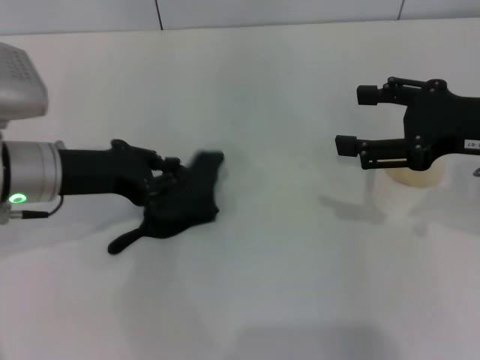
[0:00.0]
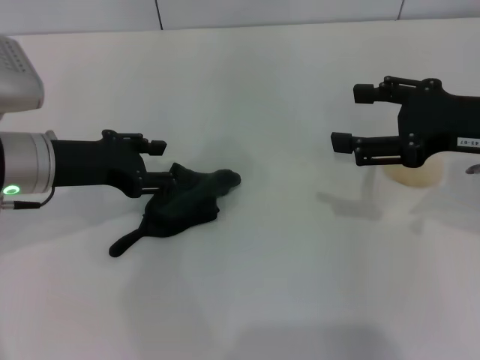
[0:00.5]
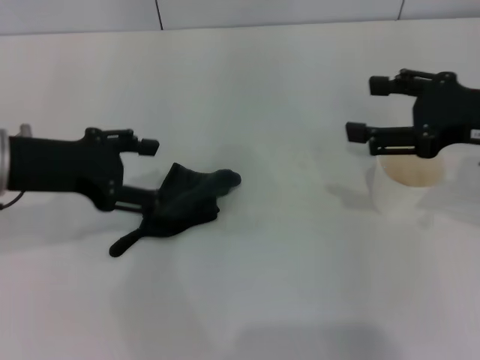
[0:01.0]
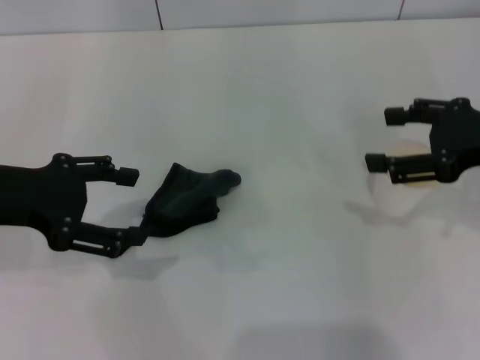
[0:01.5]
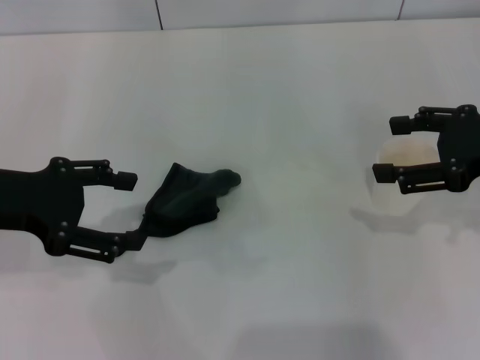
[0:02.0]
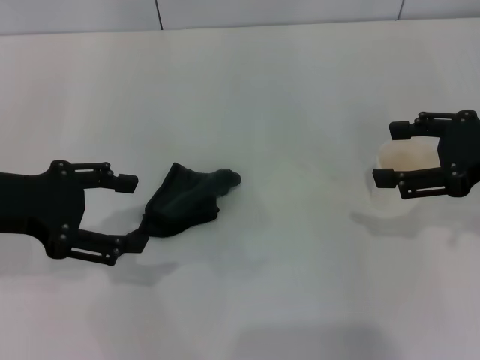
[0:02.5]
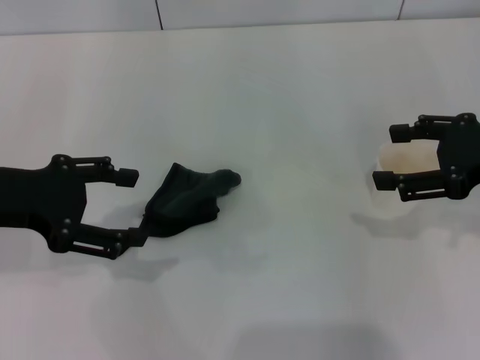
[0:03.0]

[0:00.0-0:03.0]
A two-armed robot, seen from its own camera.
0:00.0 to 0:01.5: The left gripper is displaced upward and to the left by about 10 cm, and opens up.
0:01.5 to 0:03.0: Both grippers stay about where they are.

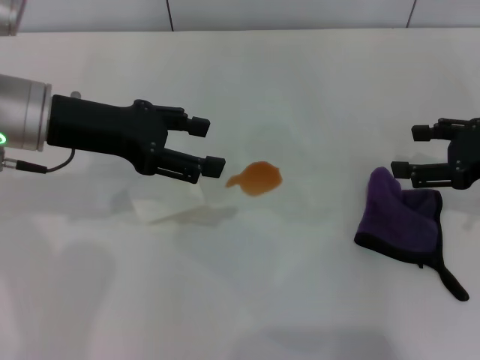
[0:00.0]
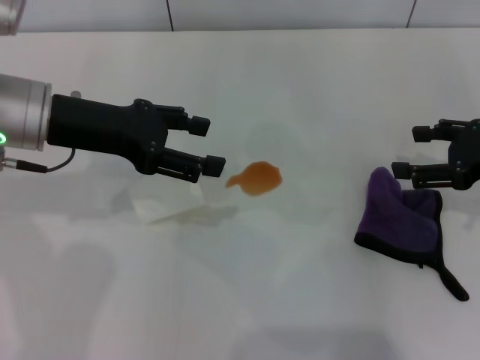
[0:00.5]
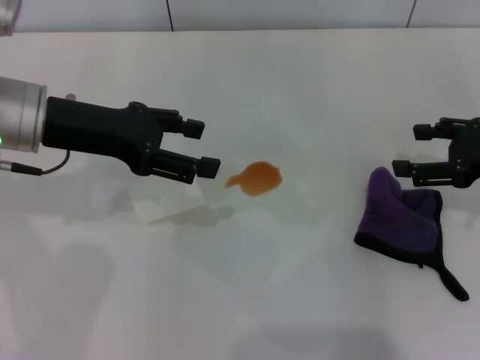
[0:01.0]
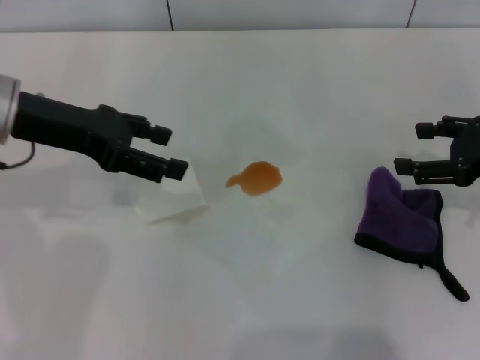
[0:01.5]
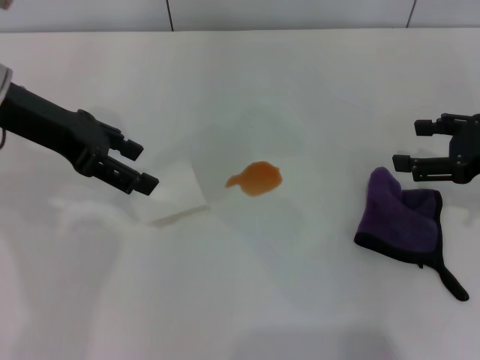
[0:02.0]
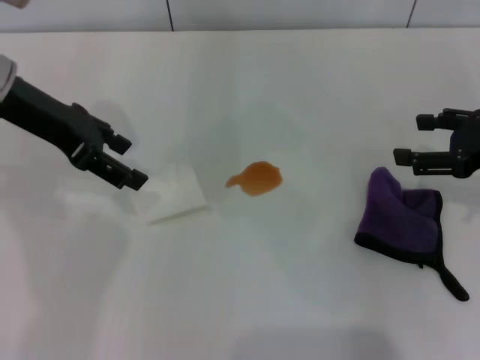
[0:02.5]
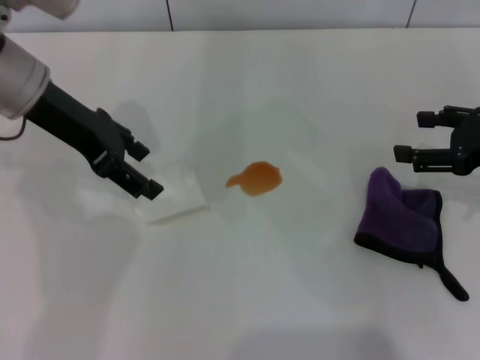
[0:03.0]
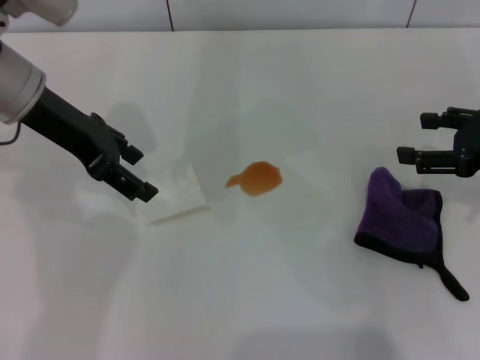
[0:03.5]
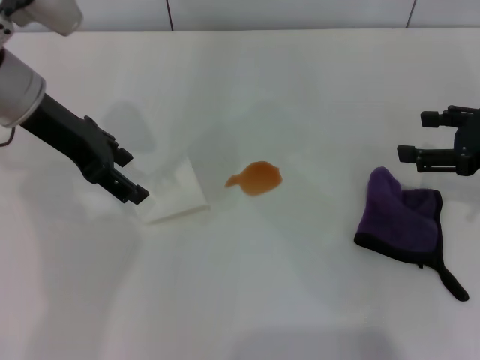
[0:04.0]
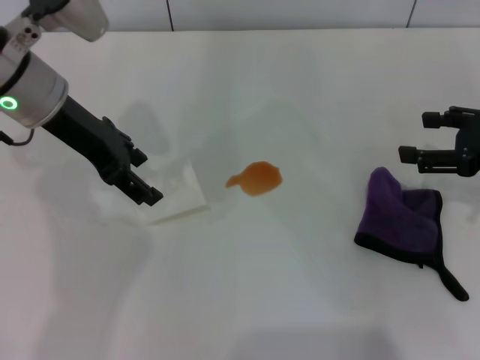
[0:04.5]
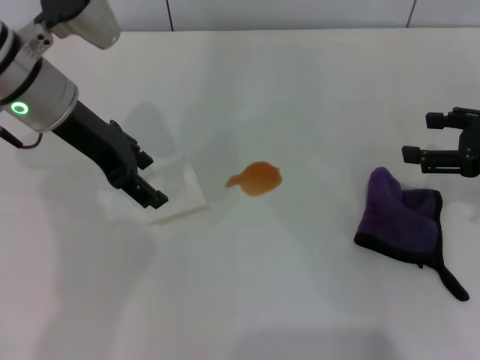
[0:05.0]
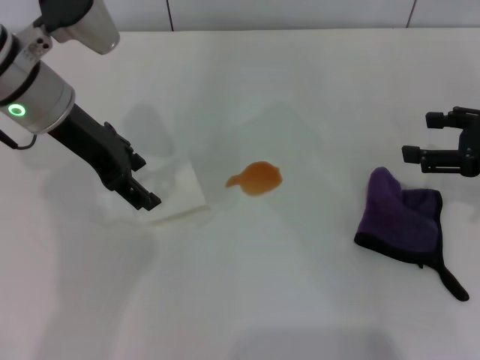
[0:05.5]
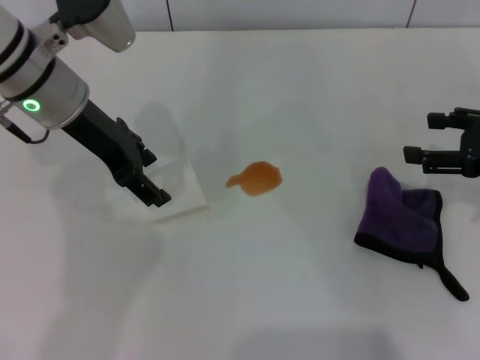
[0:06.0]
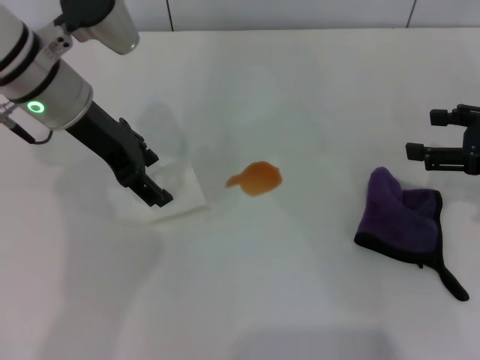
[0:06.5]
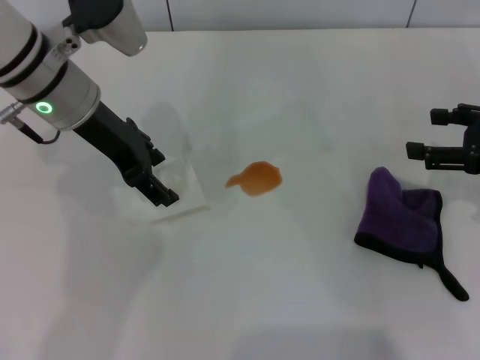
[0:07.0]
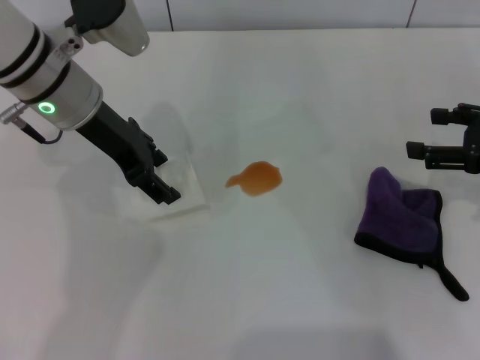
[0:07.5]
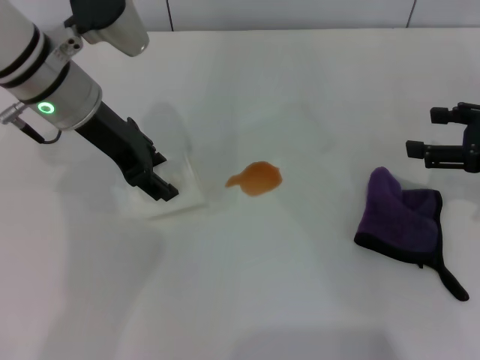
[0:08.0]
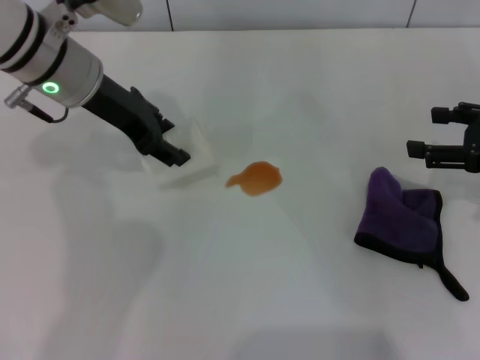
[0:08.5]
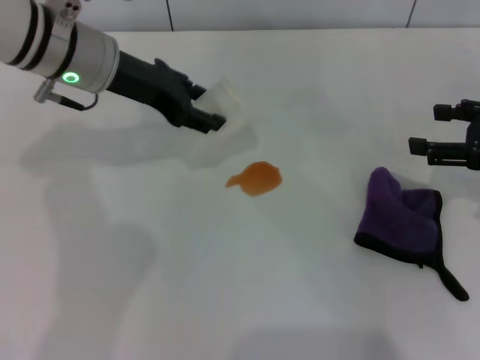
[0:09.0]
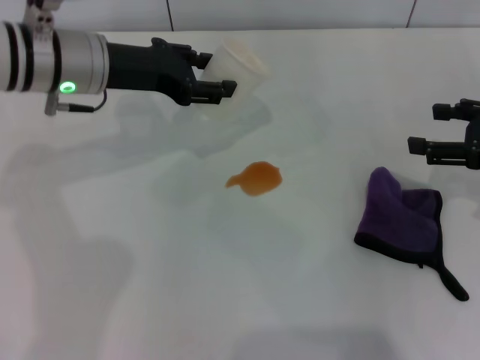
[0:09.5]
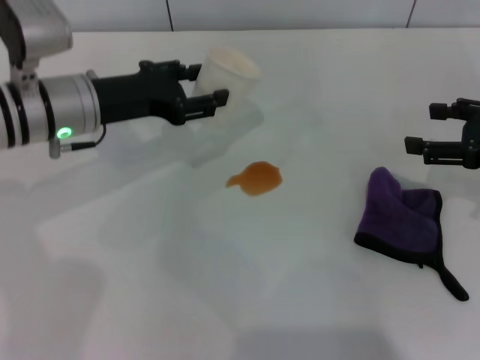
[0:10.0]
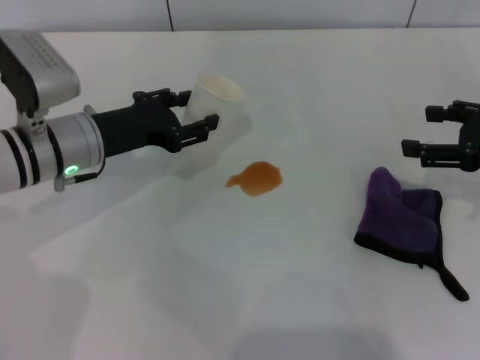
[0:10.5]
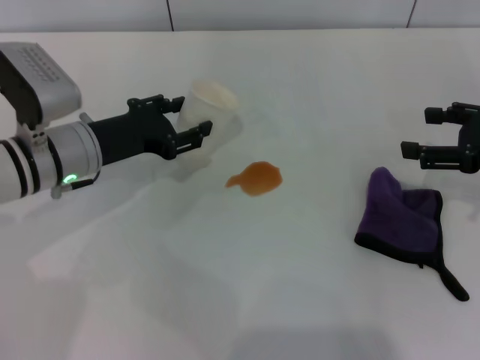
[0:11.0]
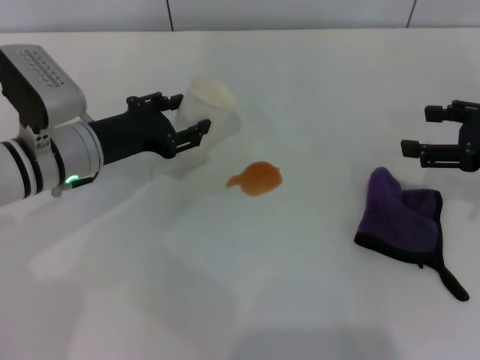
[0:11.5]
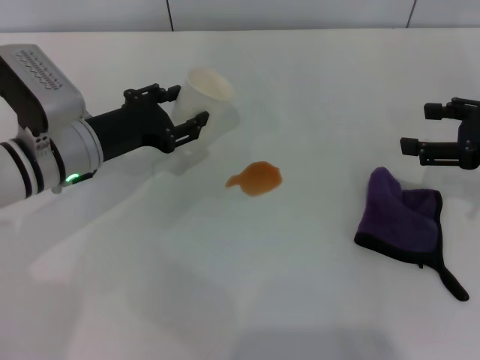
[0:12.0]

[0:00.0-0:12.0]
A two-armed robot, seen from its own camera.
Step, 0:00.0 to 0:08.0: Grasp the paper cup with the left gripper.
0:02.0 to 0:04.0: The grippers stay close to where they were, moving slightly.
0:04.0 to 0:06.0: There are only small adjustments of the grippers.
0:06.0 to 0:08.0: The left gripper closes up.
0:08.0 to 0:10.0: The left gripper moves downward, roughly 5 cm.
0:10.0 to 0:12.0: The left gripper moves about 5 cm.

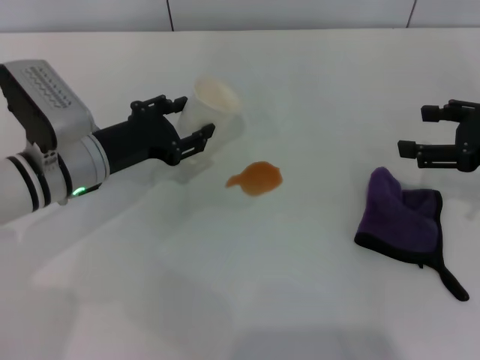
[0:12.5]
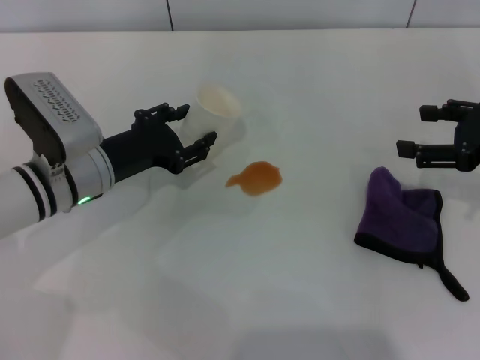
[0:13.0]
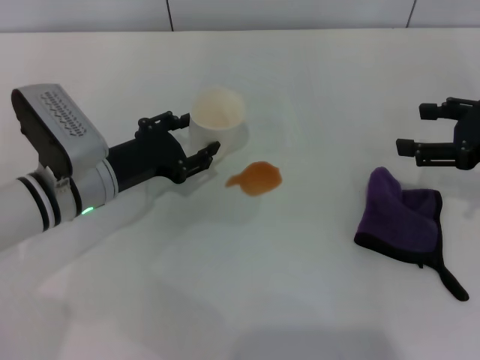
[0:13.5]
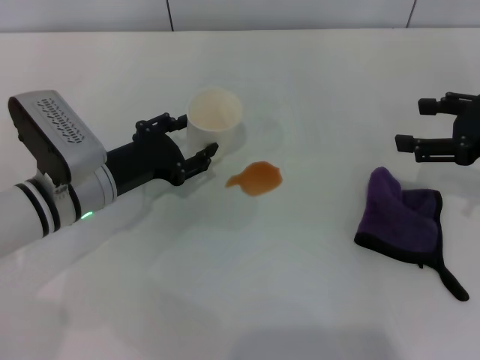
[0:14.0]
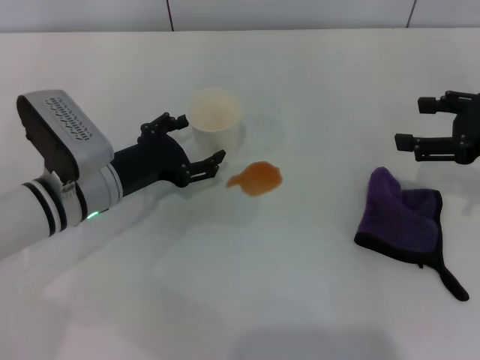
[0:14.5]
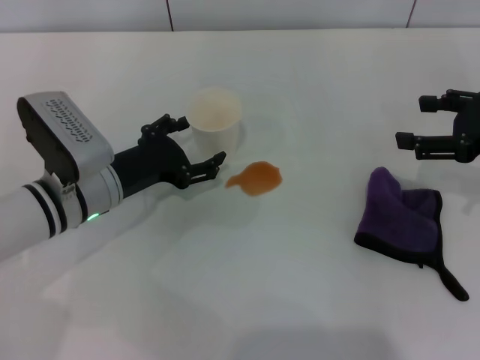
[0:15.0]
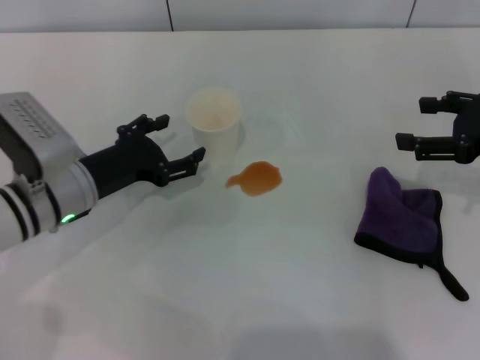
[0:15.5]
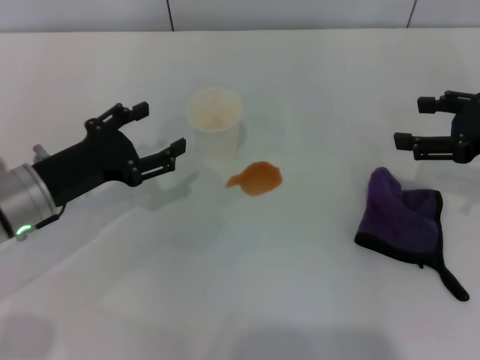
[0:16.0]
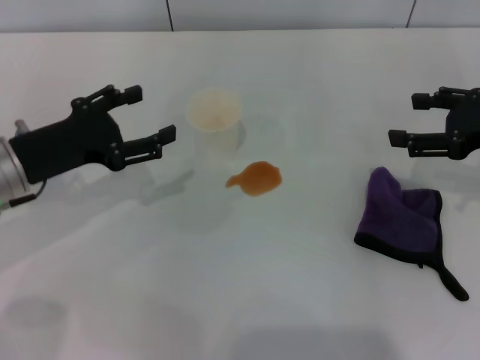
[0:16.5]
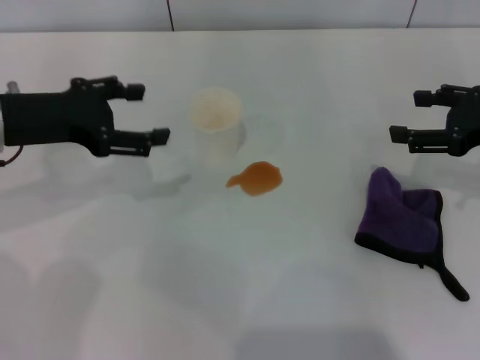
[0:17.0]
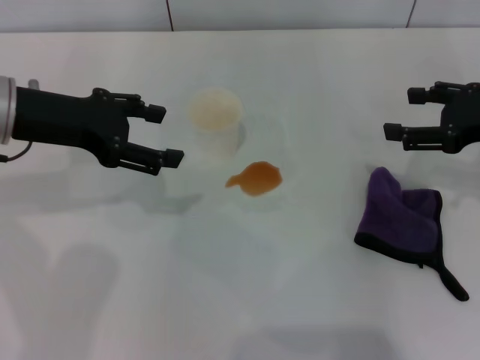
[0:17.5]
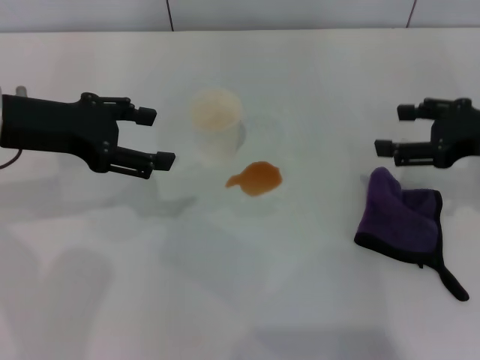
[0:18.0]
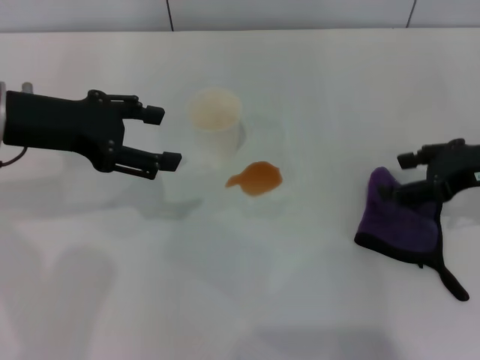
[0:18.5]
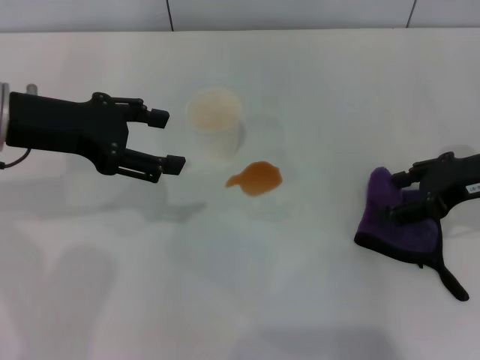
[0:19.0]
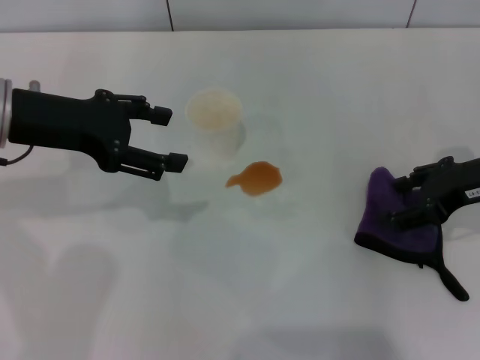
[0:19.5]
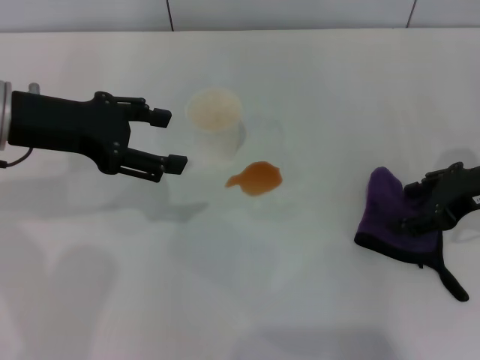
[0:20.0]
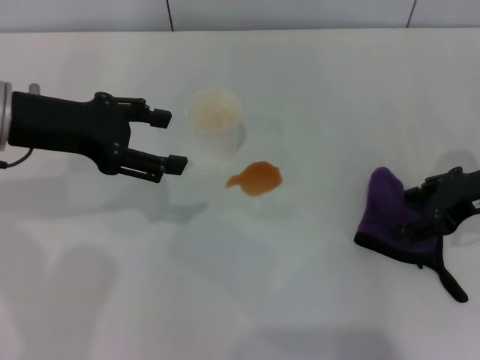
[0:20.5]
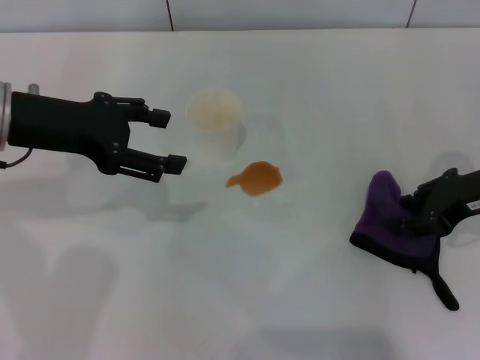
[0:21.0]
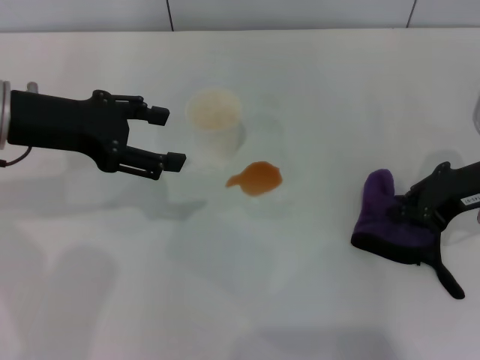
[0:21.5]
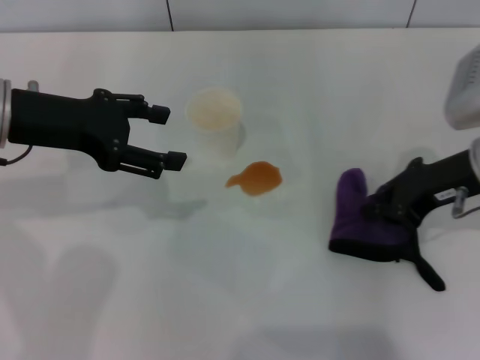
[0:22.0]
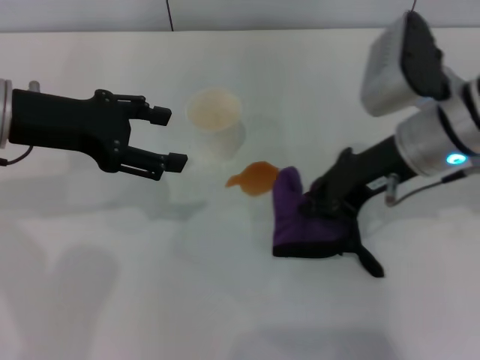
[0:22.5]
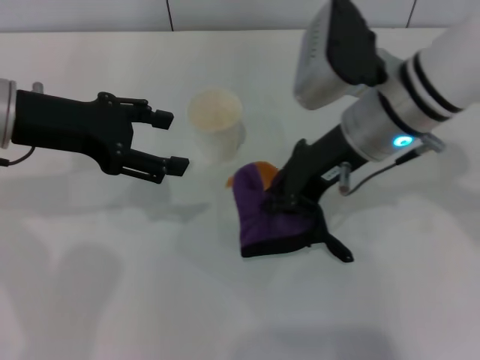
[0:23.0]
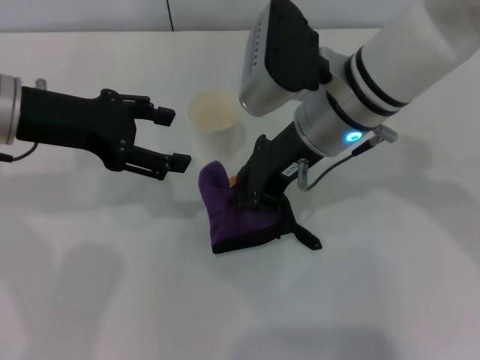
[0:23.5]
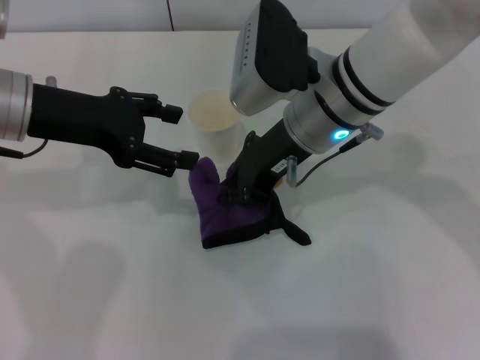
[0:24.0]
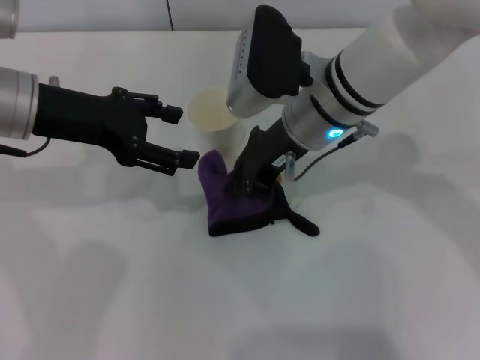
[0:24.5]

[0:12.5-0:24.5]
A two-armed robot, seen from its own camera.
Step, 0:12.5 to 0:15.5: Stand the paper cup upright with the left gripper.
Step, 0:16.0 to 0:21.0: Grasp the rag with the right gripper.
0:12.5 to 0:14.5: The left gripper opens its fingers.
0:14.5 to 0:16.5: The left gripper travels to the left and upward by approximately 10 cm, and opens.
0:16.5 to 0:18.5: The left gripper shifts roughly 10 cm upward.
0:18.5 to 0:20.5: There are only small adjustments of the grippers.
0:20.5 to 0:22.5: The right gripper shifts roughly 10 cm to the left, and closes its fingers.
0:22.5 to 0:24.5: The right gripper goes roughly 10 cm to the left.
